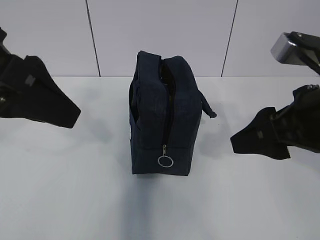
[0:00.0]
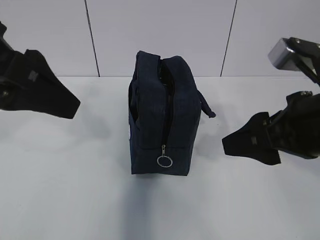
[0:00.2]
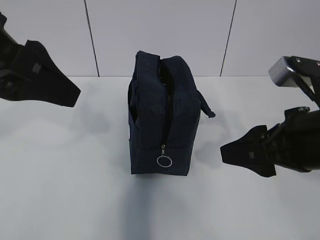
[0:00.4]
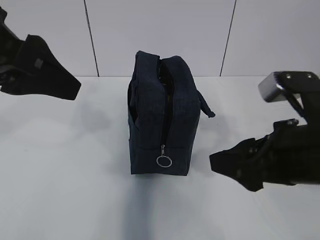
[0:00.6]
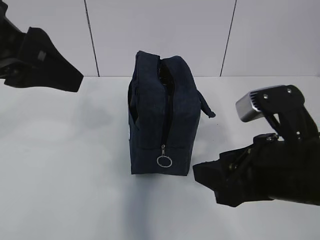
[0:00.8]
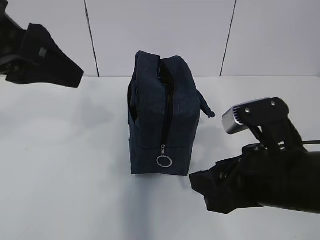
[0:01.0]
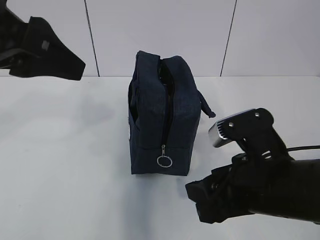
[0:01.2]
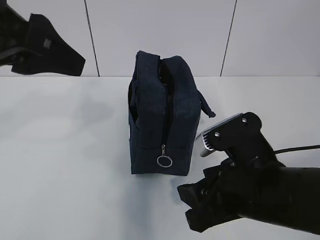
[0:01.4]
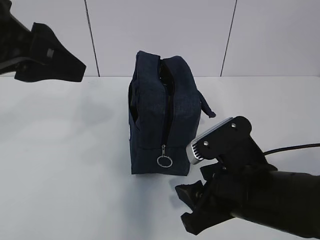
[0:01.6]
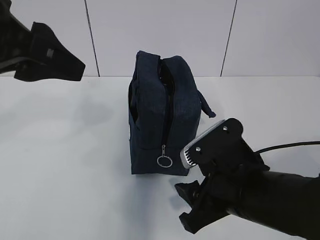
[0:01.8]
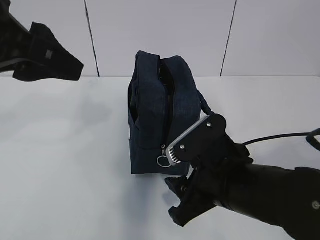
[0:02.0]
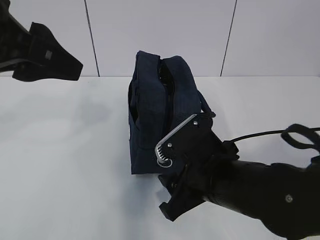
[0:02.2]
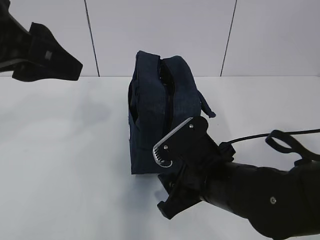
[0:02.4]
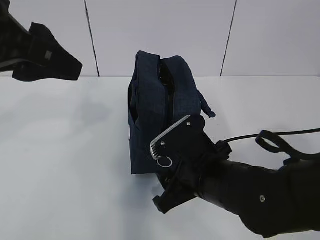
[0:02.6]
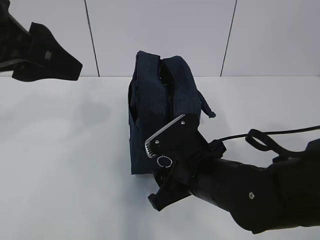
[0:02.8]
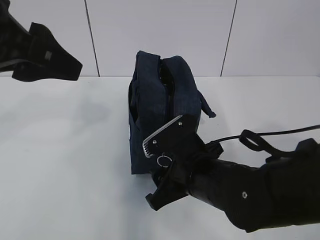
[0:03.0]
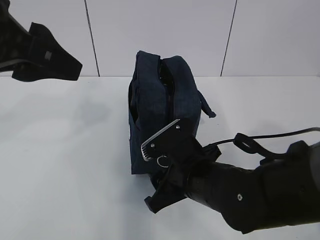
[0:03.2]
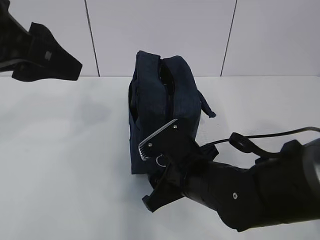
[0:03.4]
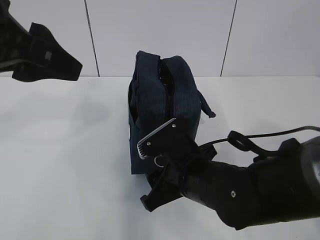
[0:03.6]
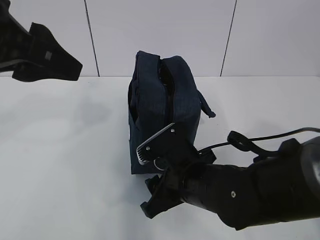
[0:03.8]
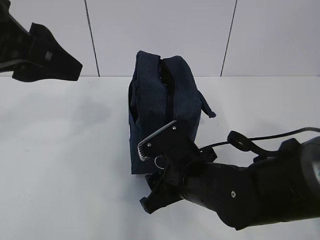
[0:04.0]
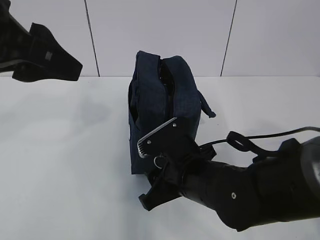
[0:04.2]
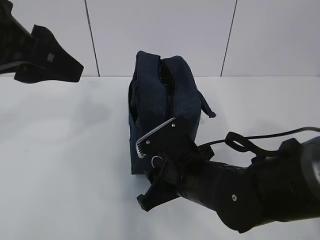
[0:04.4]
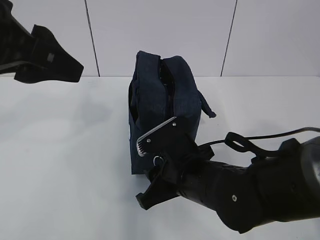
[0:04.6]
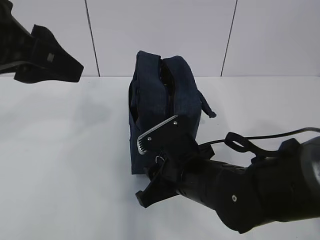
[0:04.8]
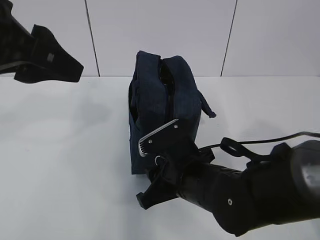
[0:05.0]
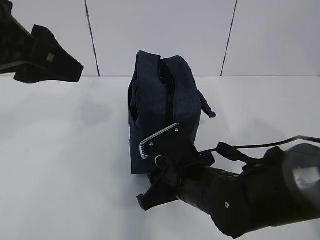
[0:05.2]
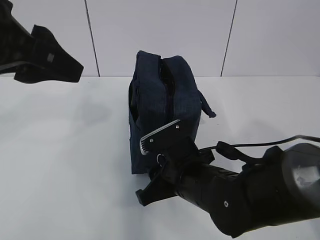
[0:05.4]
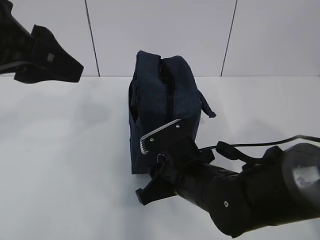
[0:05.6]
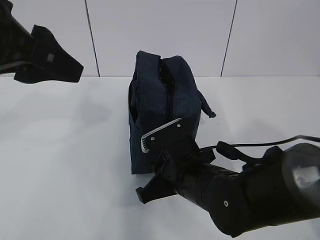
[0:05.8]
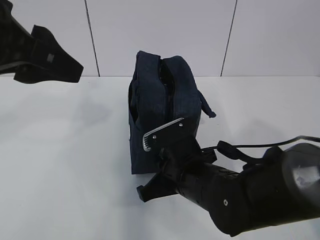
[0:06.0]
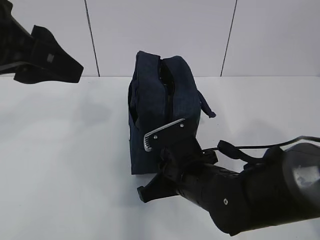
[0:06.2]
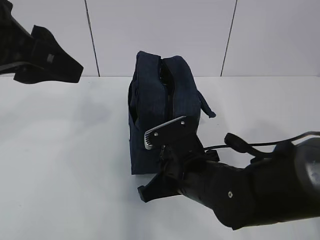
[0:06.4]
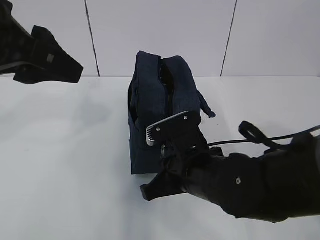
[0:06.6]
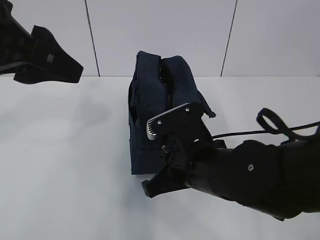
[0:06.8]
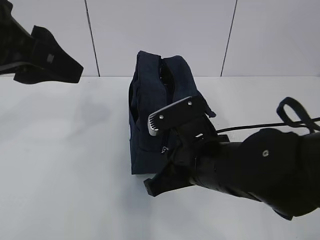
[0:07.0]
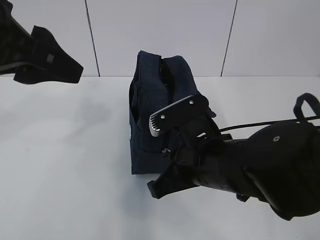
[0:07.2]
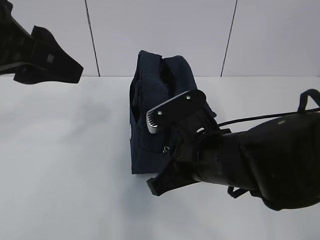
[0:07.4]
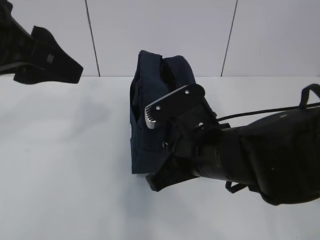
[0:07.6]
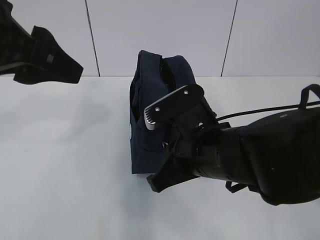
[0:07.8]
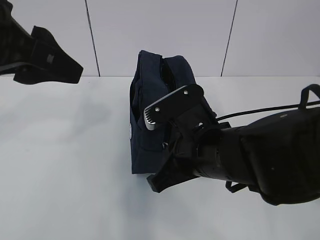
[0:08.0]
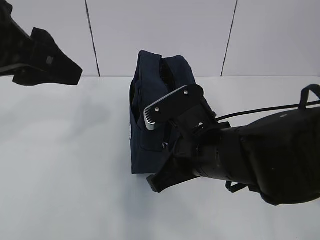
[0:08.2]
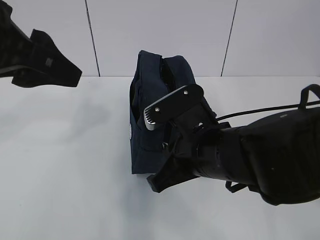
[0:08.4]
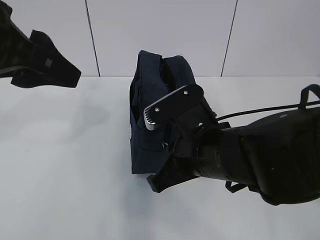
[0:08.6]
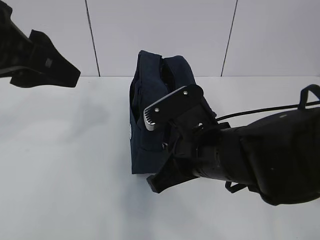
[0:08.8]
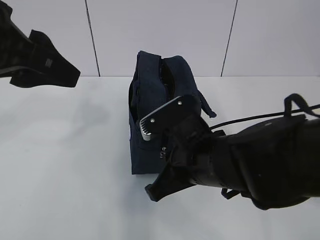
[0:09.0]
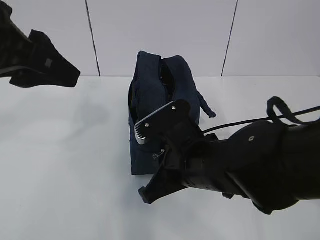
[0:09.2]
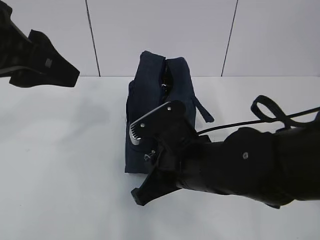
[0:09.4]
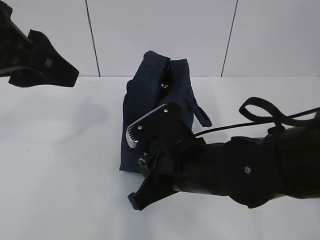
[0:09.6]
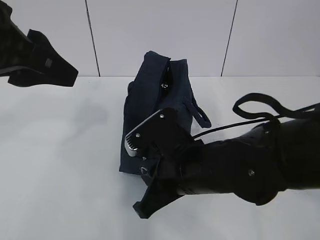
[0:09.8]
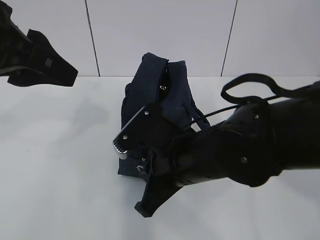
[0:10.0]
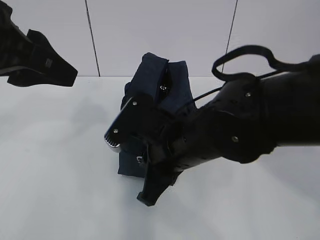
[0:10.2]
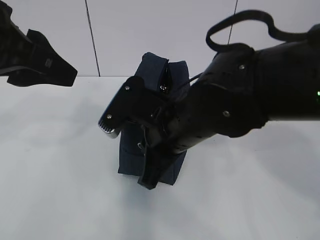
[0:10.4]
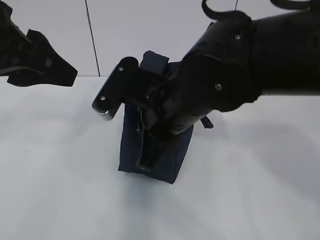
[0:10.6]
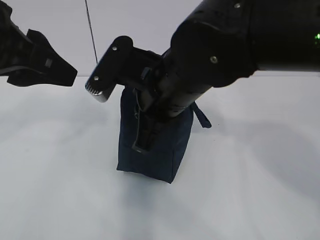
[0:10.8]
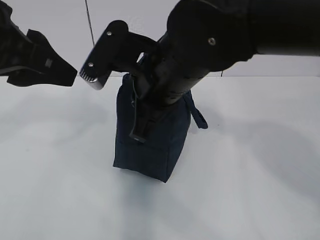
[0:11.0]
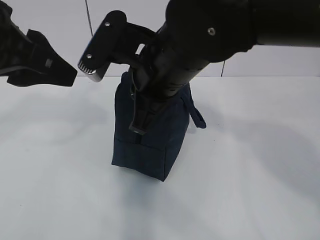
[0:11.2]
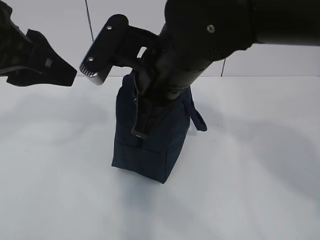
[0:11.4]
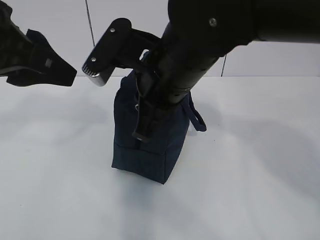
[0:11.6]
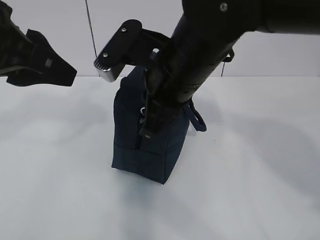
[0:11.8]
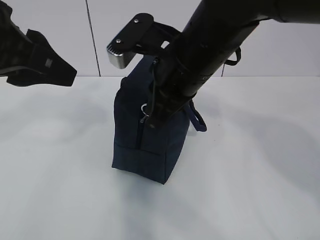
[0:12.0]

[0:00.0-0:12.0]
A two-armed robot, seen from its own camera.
0:00.0 to 0:01.6: The right gripper is displaced downward and to the left by about 15 cm.
0:01.6 to 0:03.0: The right gripper heads forward, covering some 5 cm.
0:03.0 to 0:04.4: The grippers stay close to where they were, moving slightly.
0:04.4 to 0:06.0: The right gripper closes up.
0:06.0 to 0:07.6: The right gripper moves upward, about 10 cm.
0:07.6 to 0:09.0: Neither gripper changes place.
0:09.0 to 0:10.4: The right gripper ends up some 5 cm from where it was.
0:10.4 to 0:12.0: The right gripper moves upward, about 5 cm.

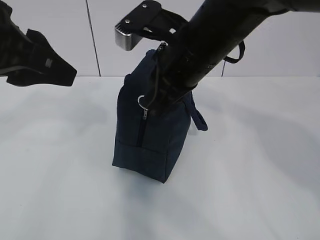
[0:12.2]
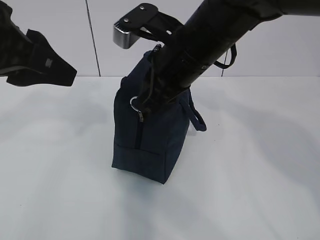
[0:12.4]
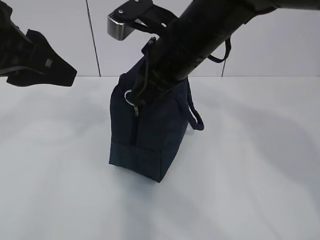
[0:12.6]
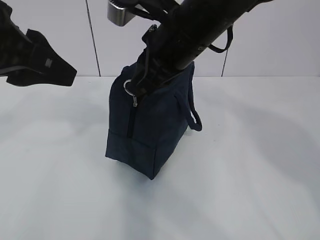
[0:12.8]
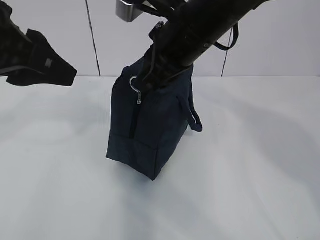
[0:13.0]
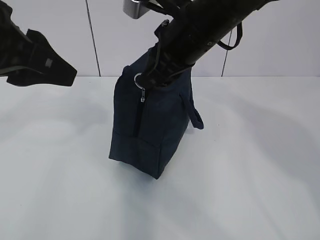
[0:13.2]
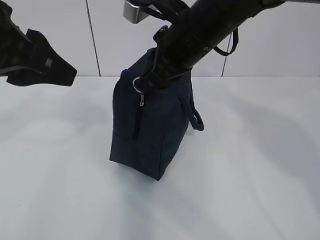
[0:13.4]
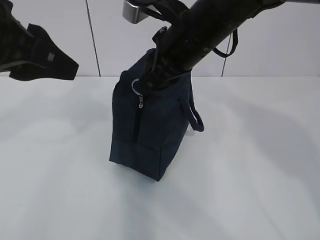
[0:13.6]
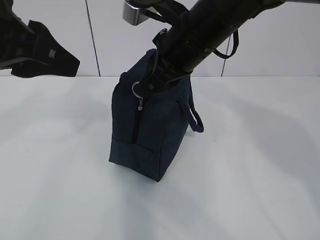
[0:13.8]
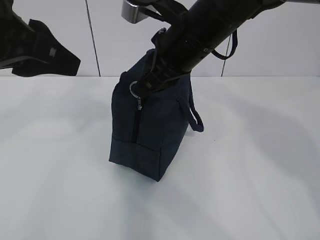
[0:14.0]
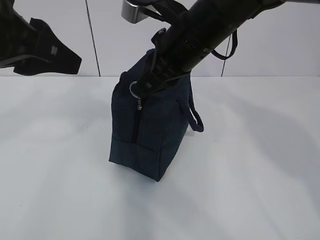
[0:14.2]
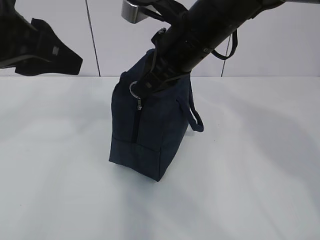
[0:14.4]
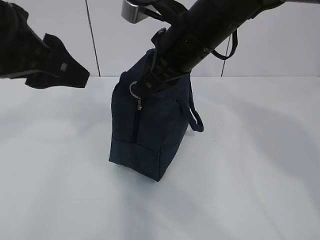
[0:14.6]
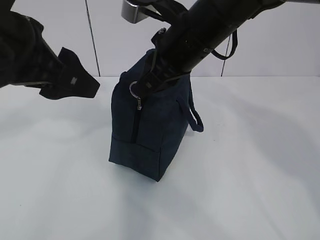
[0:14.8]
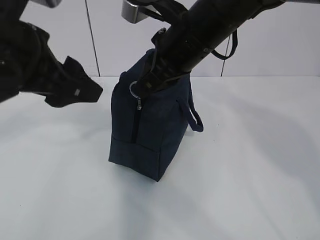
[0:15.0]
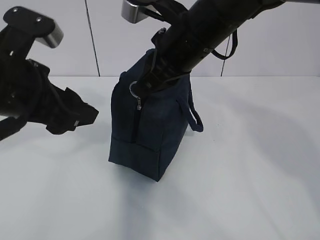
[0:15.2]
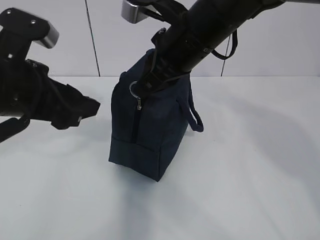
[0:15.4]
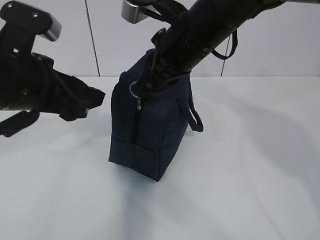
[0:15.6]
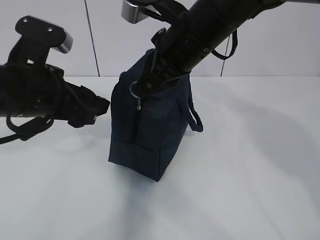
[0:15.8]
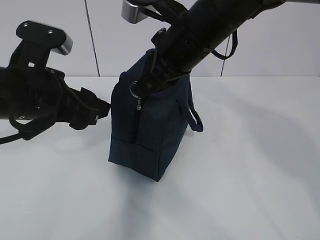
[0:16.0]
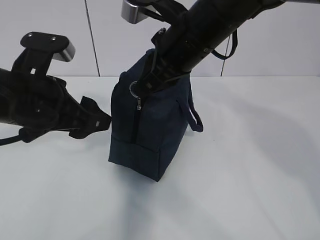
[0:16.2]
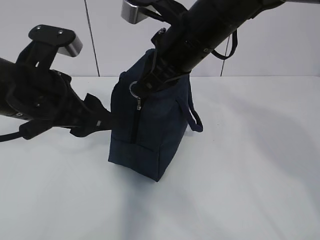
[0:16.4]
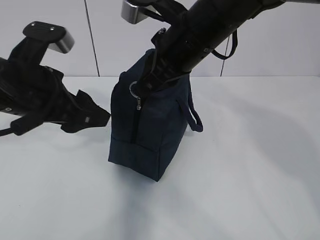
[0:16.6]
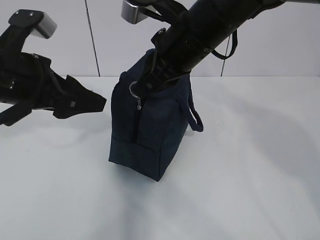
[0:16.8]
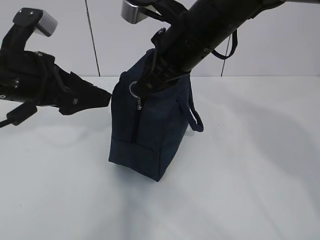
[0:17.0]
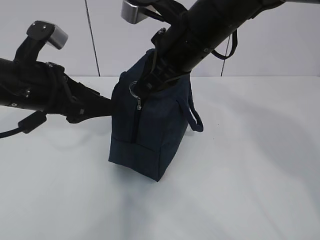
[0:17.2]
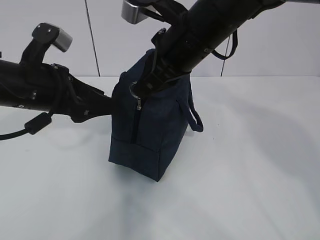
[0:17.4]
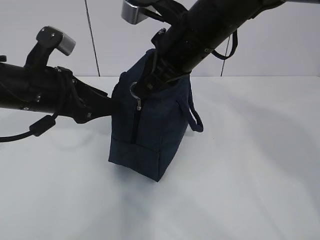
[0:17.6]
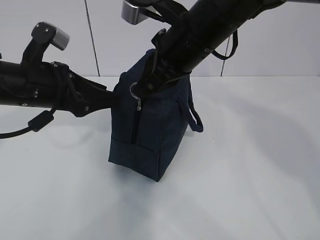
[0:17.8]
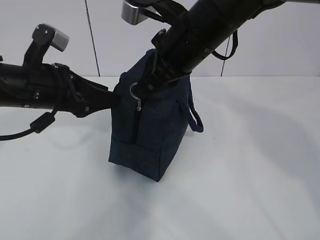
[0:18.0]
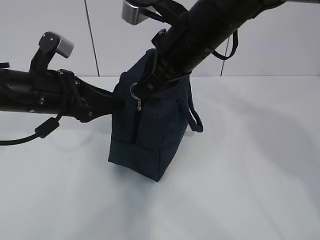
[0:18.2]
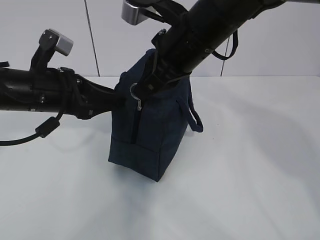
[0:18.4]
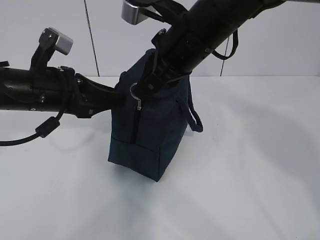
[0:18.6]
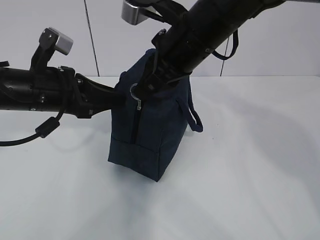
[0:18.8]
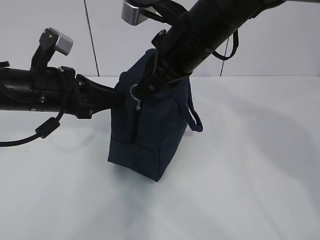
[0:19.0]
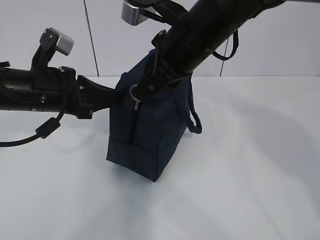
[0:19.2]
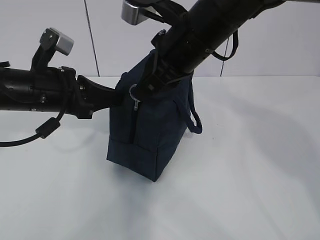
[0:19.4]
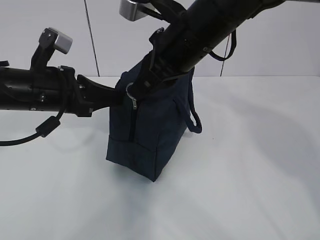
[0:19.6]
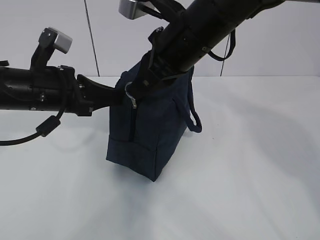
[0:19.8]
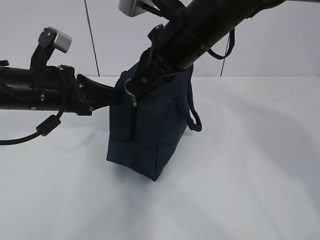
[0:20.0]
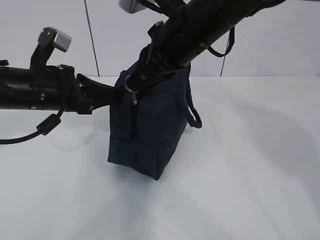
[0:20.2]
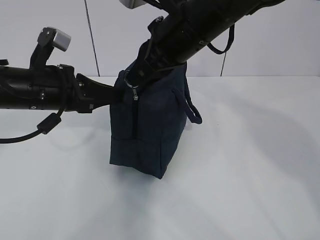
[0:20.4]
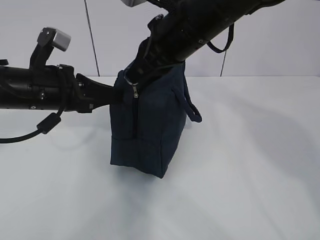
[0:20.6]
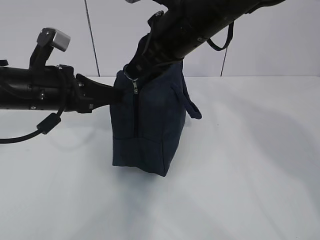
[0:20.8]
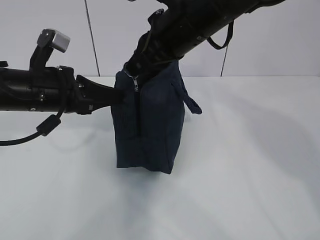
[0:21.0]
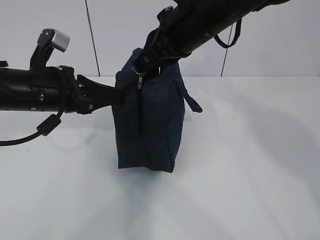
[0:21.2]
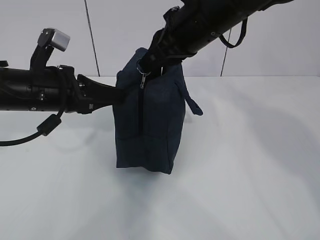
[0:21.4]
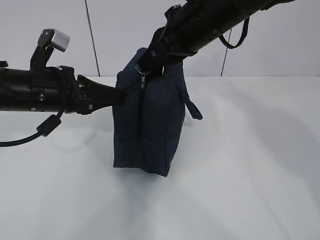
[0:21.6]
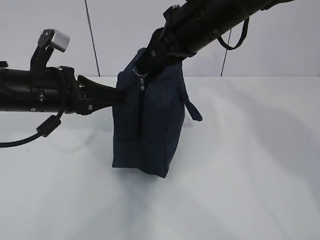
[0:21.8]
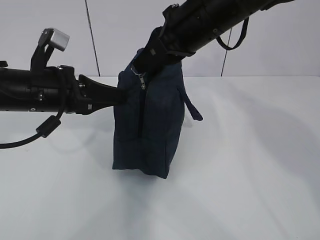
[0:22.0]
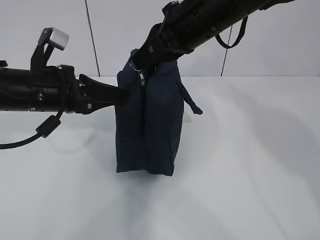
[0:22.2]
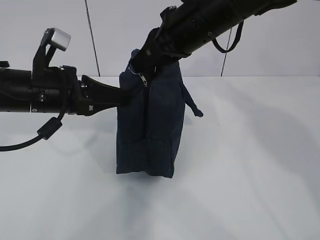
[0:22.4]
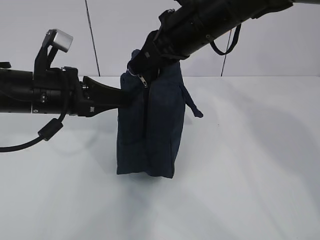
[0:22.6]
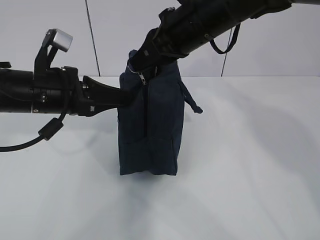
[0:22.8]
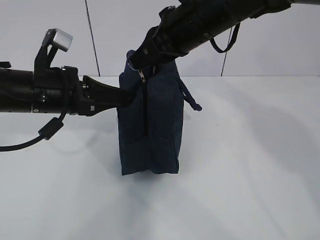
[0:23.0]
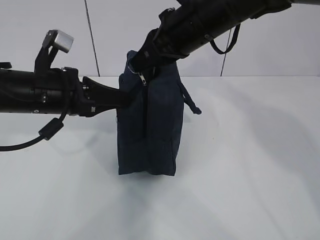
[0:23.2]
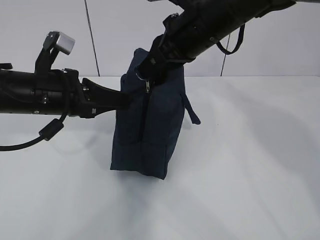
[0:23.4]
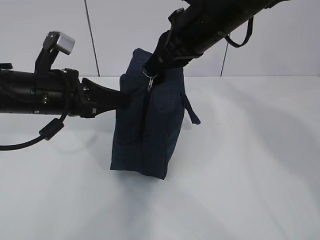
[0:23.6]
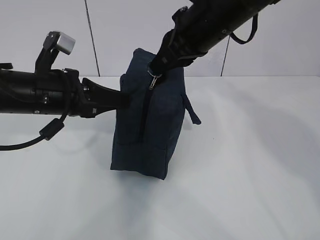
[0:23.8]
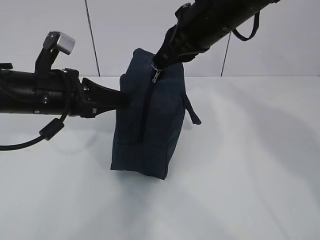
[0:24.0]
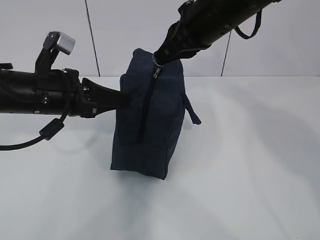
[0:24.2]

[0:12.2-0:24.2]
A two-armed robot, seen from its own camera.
Step, 0:12.2 to 0:15.2: Grab the lunch bag with your left hand.
Step, 0:15.4 to 0:22.6: Pull the zipper with your right hand.
0:12.2 to 0:13.8: There are only small adjustments of the grippers.
0:13.8 to 0:15.2: The left gripper travels downward by roughly 10 cm, and opens its fingers.
0:15.2 to 0:16.6: The grippers move only a little.
0:16.6 to 0:18.2: The left gripper travels forward by some 5 cm.
0:18.2 to 0:19.8: The left gripper closes up.
0:19.8 to 0:24.2: The grippers make only small movements.
